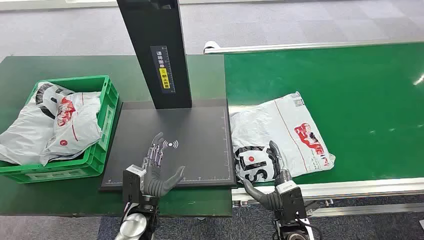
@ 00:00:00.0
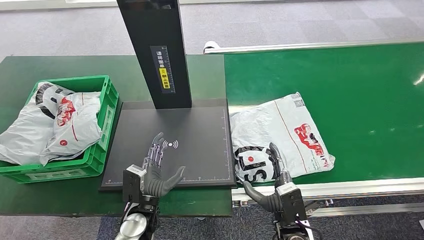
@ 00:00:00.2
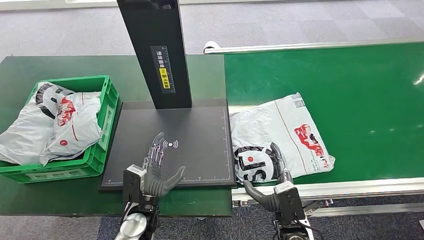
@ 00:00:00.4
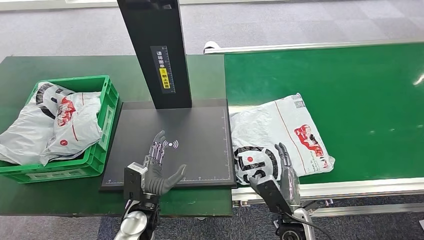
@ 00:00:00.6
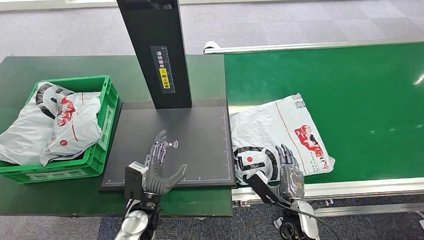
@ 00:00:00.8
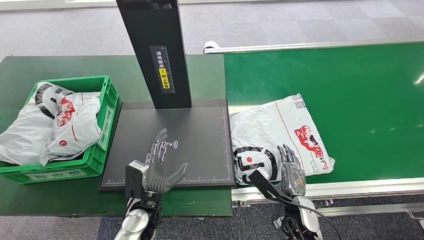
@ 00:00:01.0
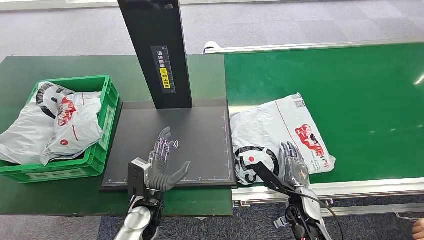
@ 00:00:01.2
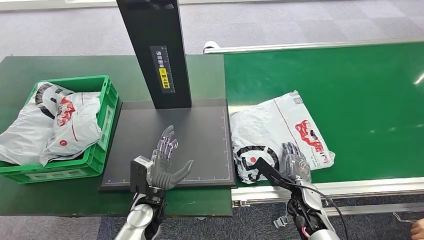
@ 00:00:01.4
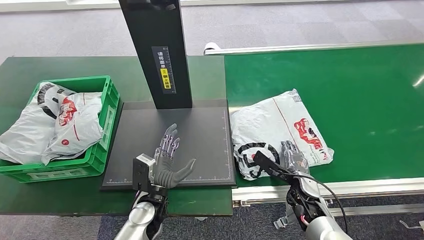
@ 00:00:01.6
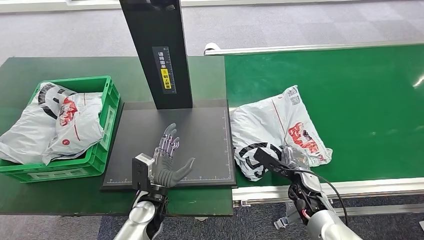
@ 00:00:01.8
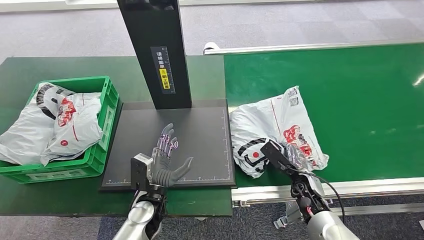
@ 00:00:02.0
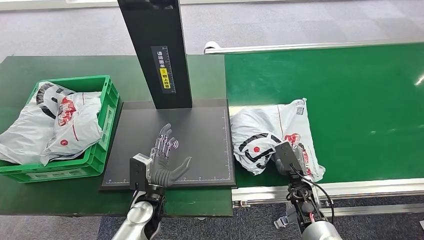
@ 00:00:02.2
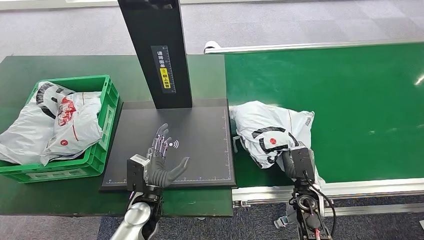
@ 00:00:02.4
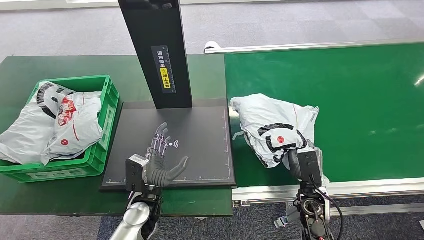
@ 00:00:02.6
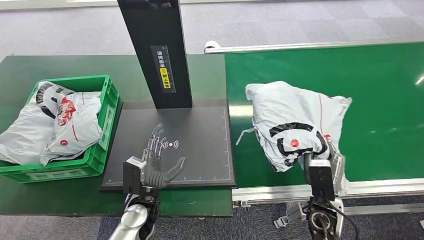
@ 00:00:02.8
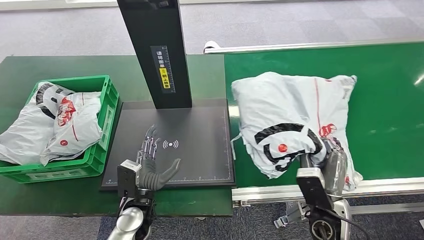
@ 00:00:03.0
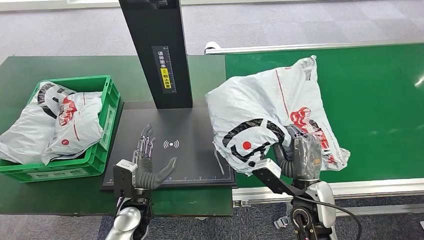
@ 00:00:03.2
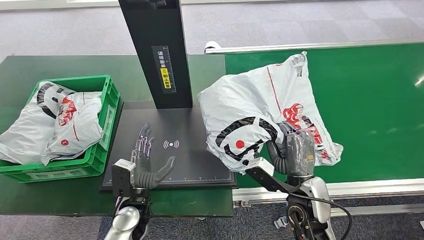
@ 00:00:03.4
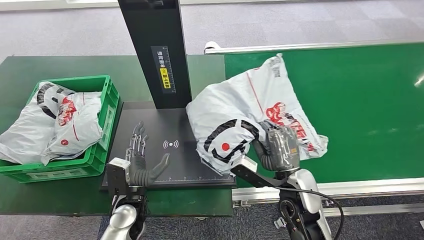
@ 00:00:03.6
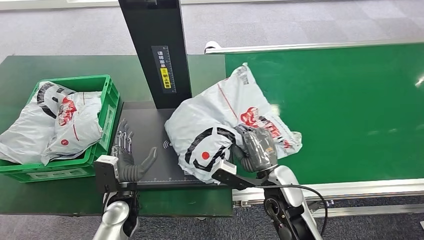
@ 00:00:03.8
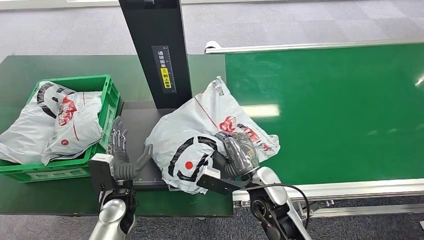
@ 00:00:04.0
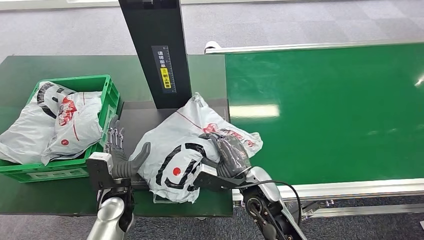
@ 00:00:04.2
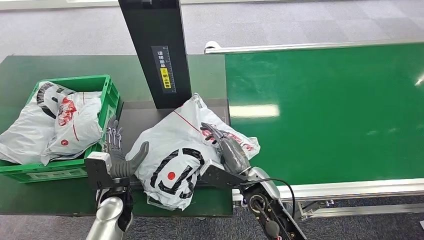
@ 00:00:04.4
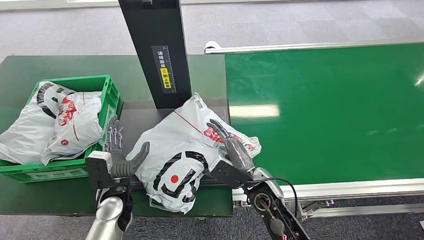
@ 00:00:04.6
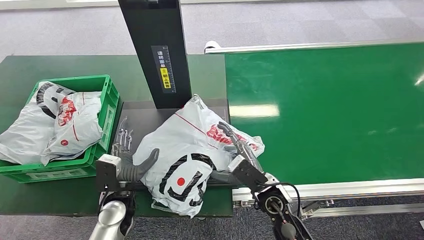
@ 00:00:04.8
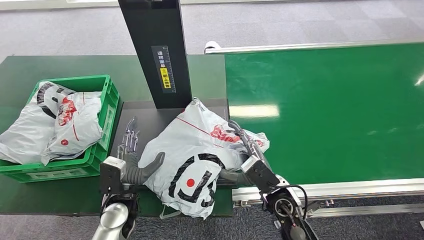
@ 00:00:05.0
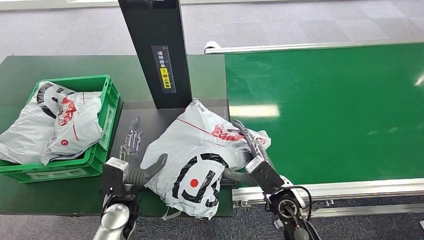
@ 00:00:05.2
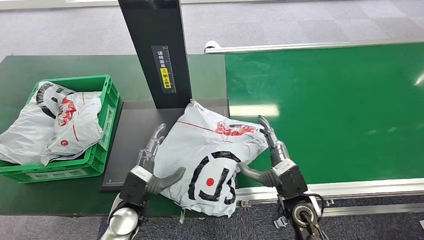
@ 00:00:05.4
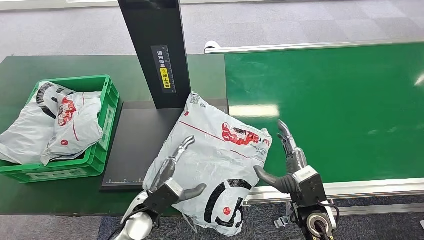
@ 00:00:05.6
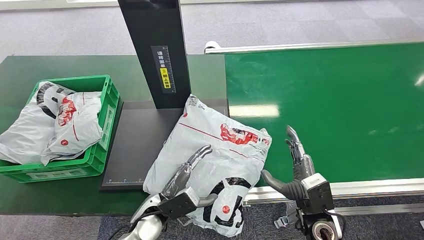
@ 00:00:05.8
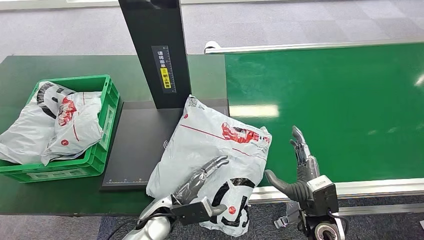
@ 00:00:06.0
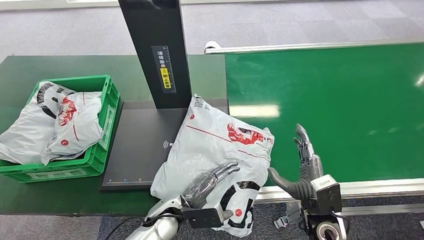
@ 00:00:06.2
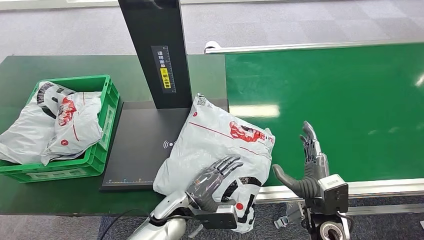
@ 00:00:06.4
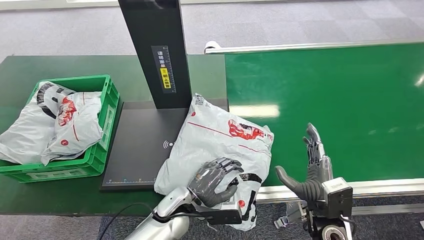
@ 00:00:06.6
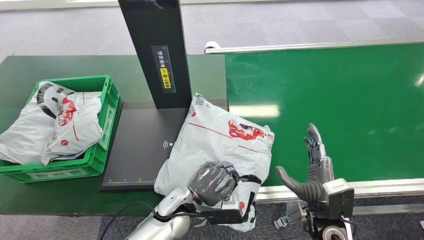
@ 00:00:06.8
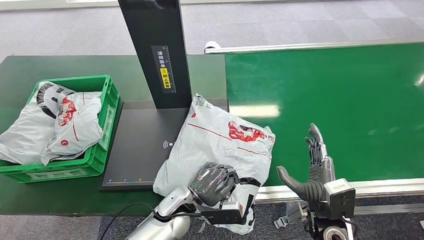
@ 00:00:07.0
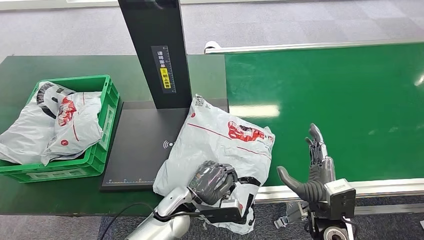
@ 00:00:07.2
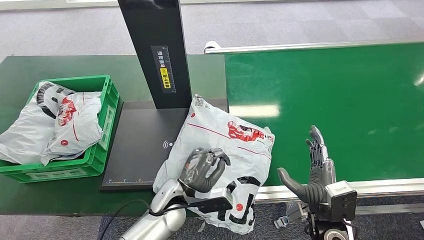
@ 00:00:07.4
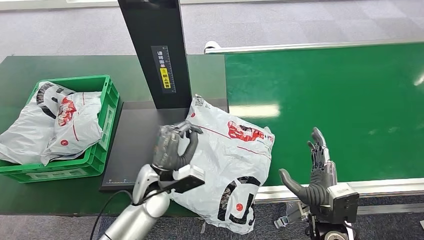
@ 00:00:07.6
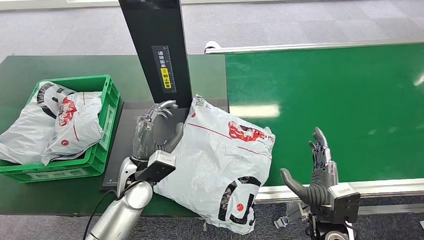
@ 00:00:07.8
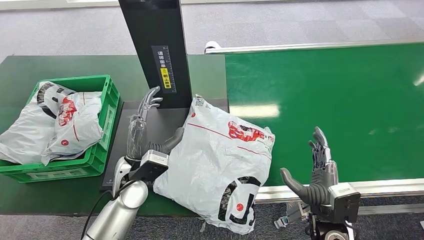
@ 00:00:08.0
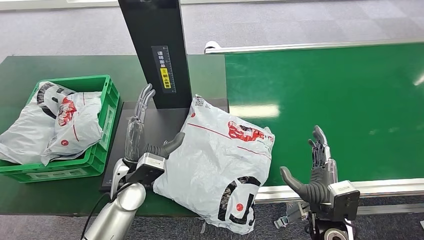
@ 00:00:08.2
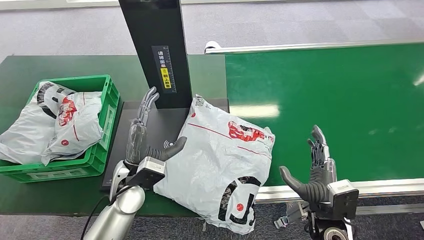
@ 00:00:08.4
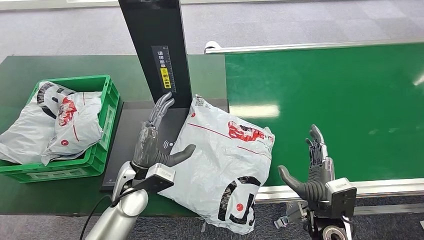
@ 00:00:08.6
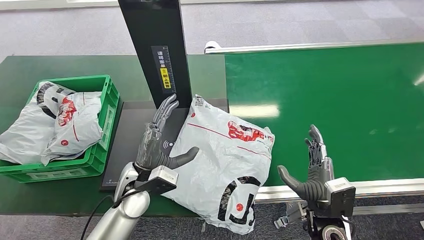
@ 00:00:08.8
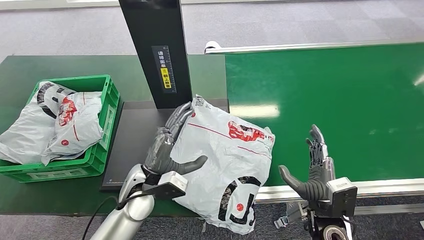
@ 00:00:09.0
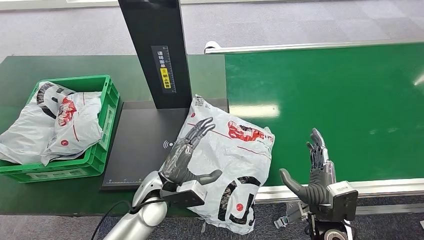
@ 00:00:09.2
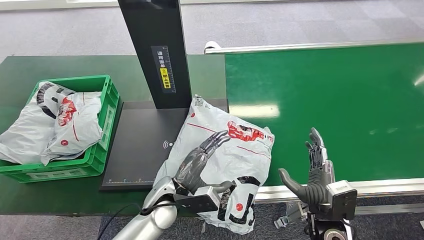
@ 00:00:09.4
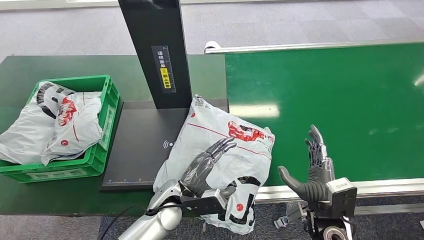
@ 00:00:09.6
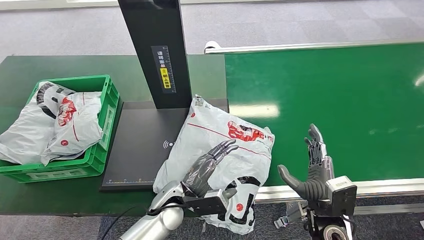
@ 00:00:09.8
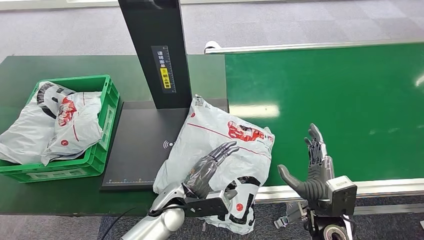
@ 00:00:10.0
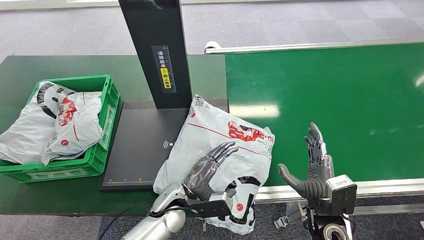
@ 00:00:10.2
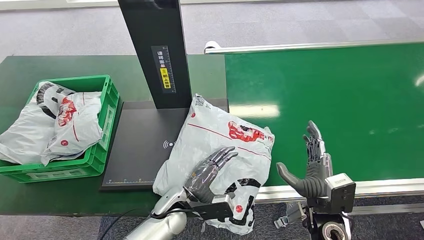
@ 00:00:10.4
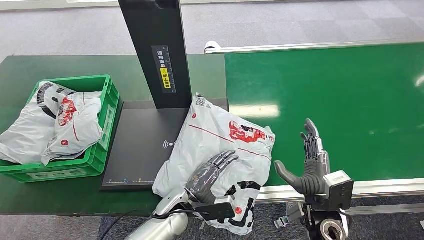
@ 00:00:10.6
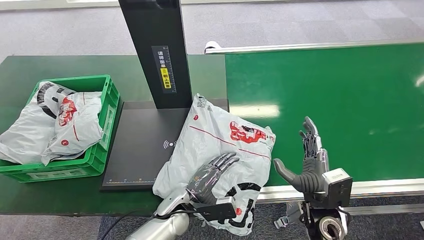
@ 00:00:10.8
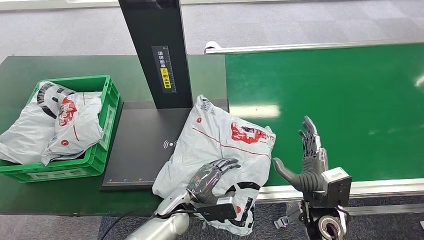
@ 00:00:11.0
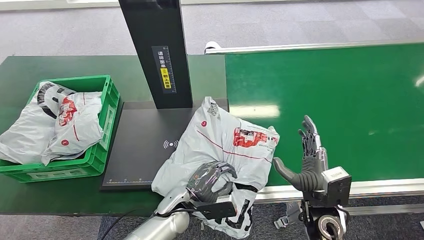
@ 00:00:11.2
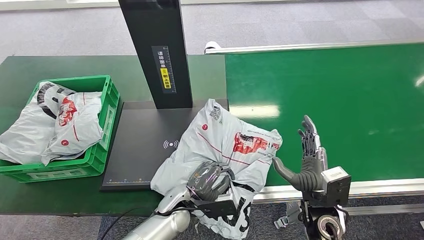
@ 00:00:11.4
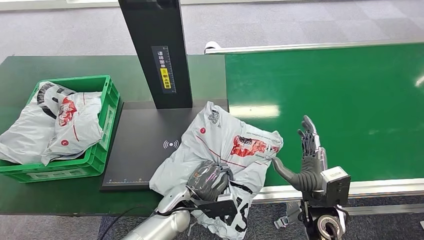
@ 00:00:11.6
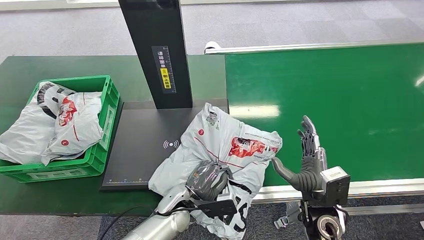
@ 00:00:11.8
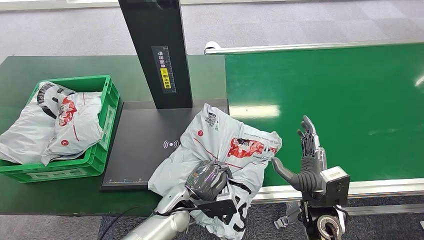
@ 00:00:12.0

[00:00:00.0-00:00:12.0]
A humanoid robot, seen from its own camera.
Step, 00:00:00.0 to 00:00:03.6: Pick up the package from the conveyor belt.
Step, 00:00:03.8 to 00:00:07.6: Place the package onto the inbound machine.
00:00:04.4 to 00:00:06.0: The right hand shifts approximately 15 cm to the right and backward; the left hand heads to the right, covering roughly 10 cm.
00:00:06.0 to 00:00:07.6: The left hand is displaced upward by about 5 cm.
00:00:07.6 to 00:00:09.0: The hands make only small movements.
00:00:09.0 to 00:00:10.4: The left hand shifts roughly 10 cm downward and to the right.
00:00:10.4 to 00:00:12.0: The hands make only small movements.

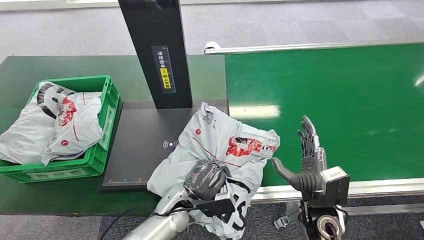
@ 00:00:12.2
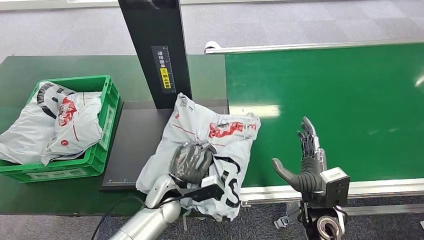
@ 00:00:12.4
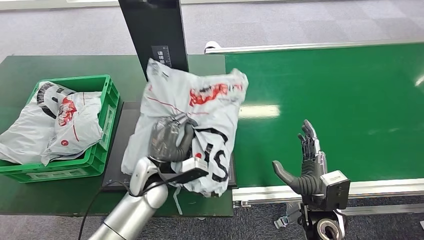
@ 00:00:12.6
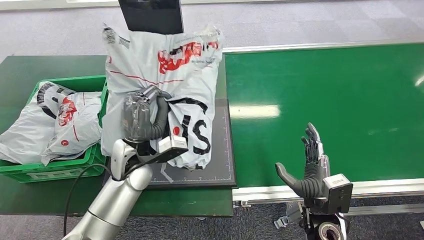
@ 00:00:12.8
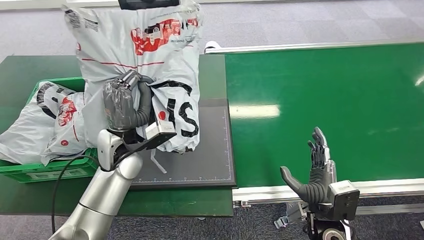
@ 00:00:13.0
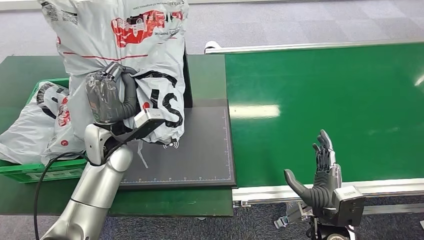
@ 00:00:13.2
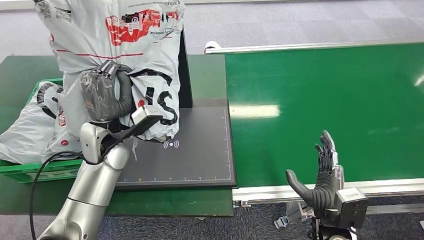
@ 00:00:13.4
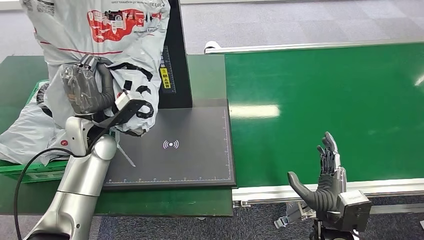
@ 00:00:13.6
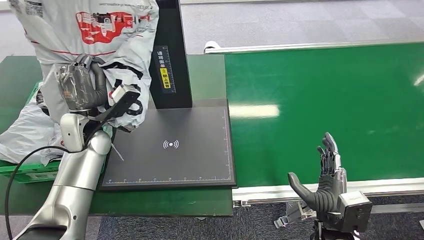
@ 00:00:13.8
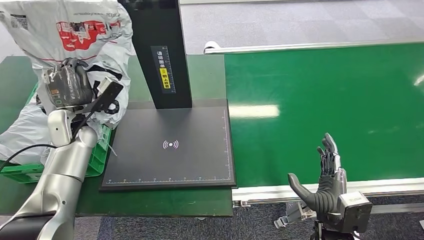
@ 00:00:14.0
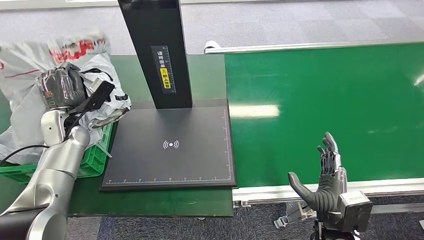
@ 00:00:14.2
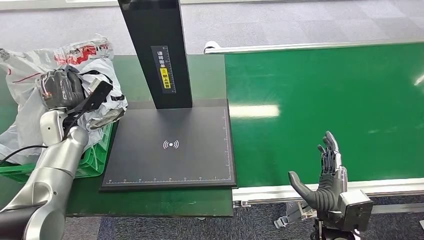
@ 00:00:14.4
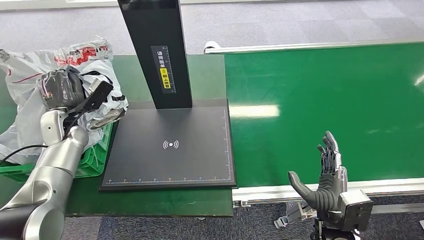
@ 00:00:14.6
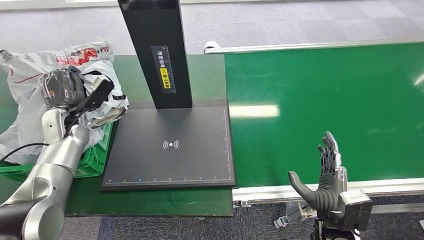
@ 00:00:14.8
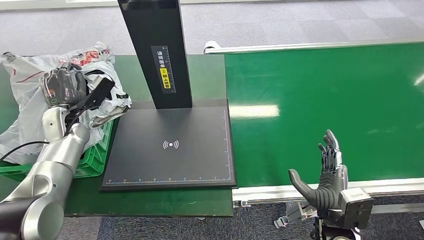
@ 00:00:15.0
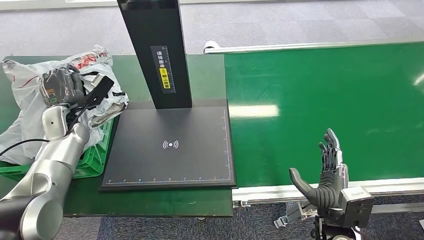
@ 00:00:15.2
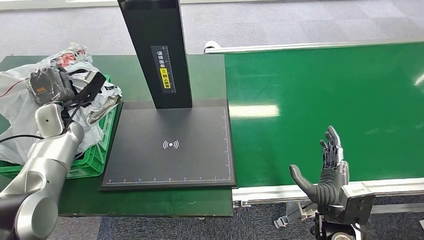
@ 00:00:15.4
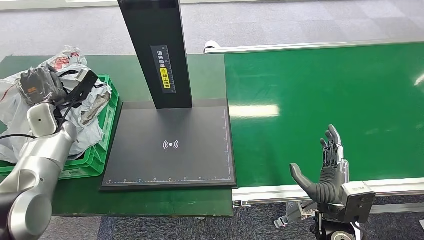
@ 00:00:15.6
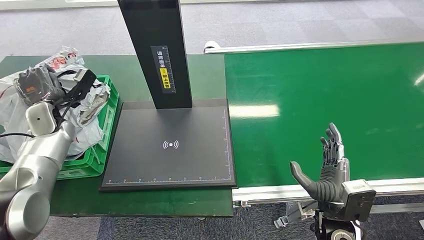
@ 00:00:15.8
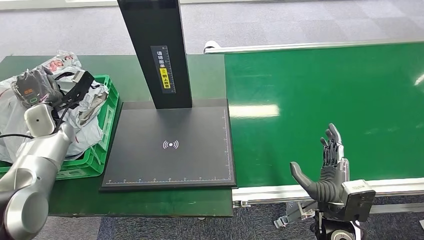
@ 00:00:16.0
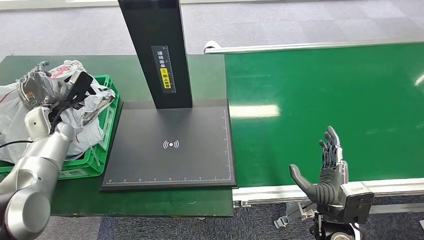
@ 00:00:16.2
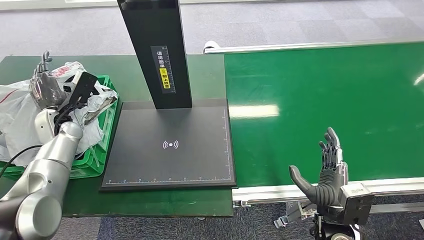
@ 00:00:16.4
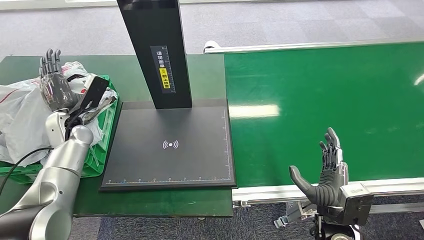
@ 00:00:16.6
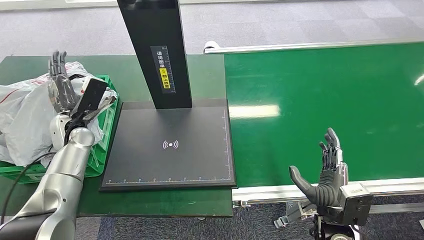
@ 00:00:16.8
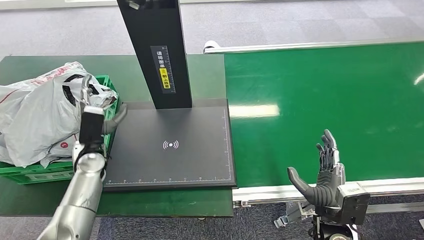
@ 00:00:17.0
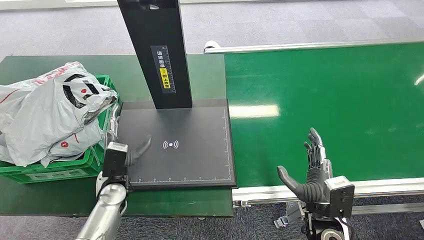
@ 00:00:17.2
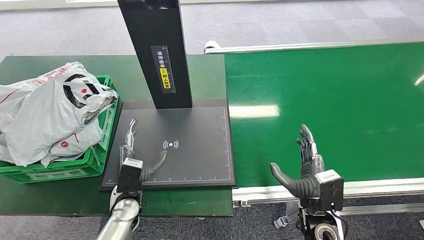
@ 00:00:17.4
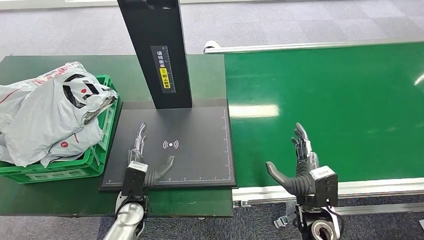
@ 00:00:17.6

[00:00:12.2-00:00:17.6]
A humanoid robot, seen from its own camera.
Step, 00:00:13.2 to 00:00:17.6: Place the package into the parcel locker.
00:00:16.2 to 00:00:17.6: The left hand moves to the right, backward and downward, about 35 cm.
